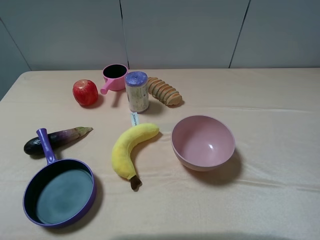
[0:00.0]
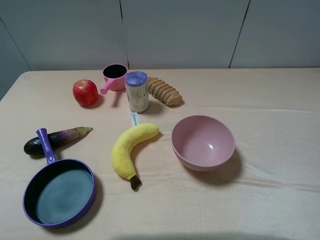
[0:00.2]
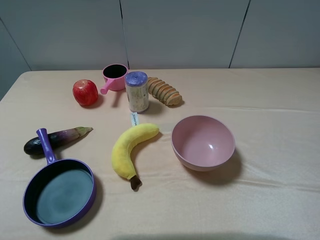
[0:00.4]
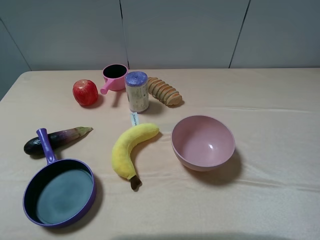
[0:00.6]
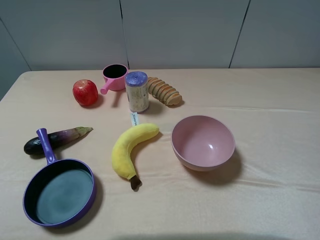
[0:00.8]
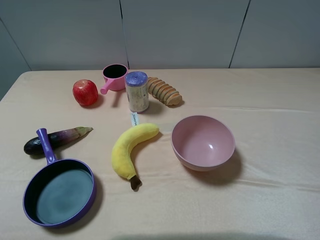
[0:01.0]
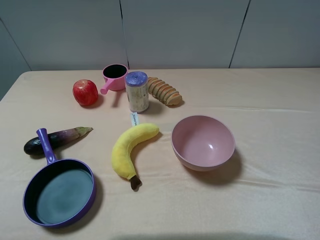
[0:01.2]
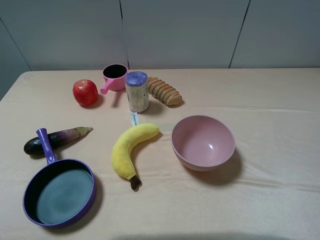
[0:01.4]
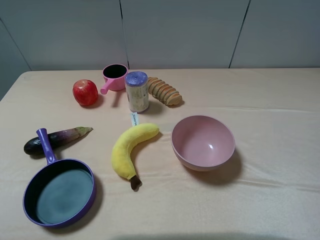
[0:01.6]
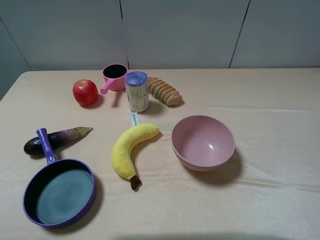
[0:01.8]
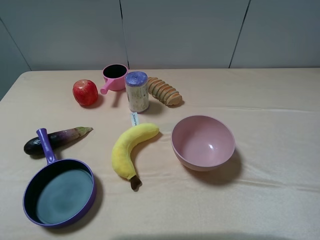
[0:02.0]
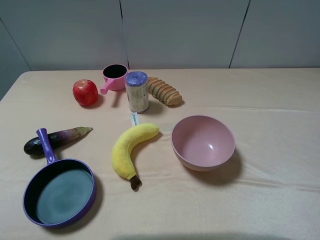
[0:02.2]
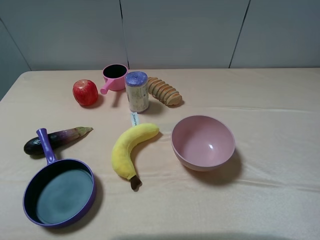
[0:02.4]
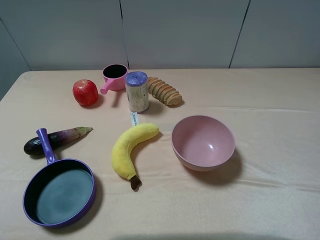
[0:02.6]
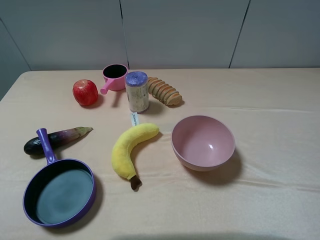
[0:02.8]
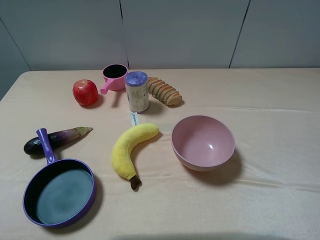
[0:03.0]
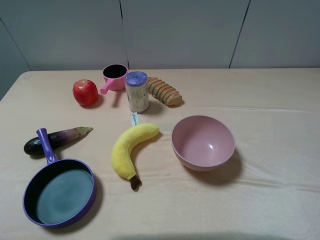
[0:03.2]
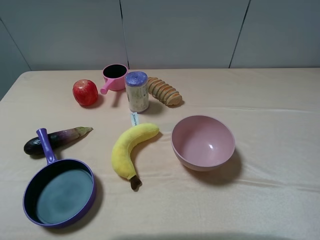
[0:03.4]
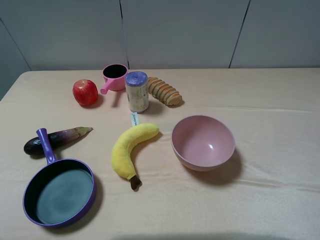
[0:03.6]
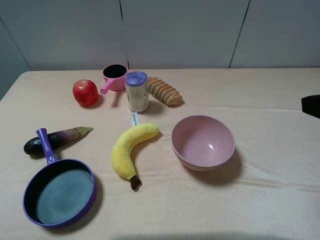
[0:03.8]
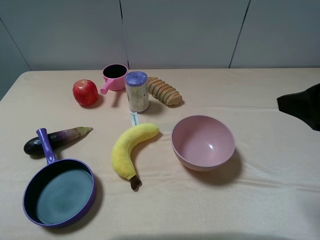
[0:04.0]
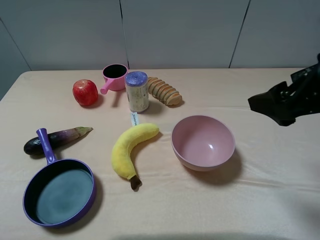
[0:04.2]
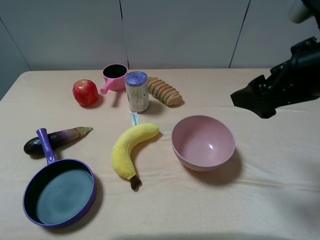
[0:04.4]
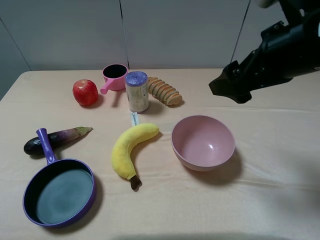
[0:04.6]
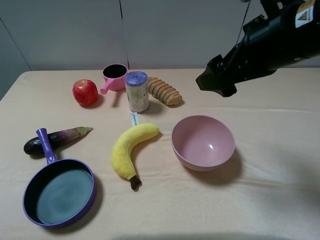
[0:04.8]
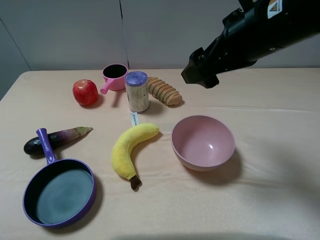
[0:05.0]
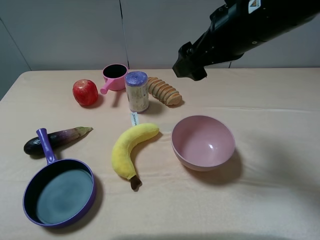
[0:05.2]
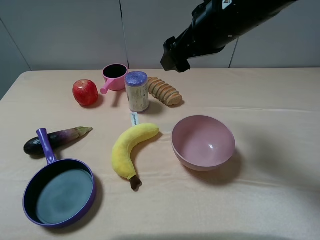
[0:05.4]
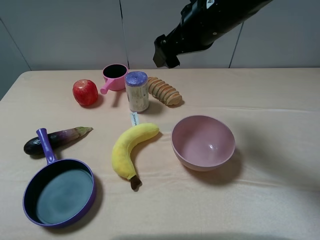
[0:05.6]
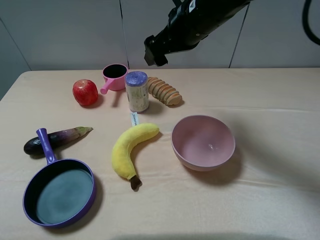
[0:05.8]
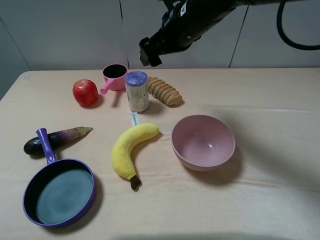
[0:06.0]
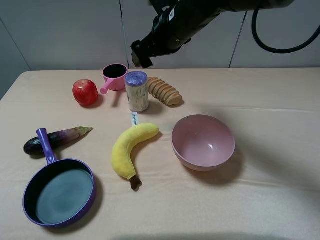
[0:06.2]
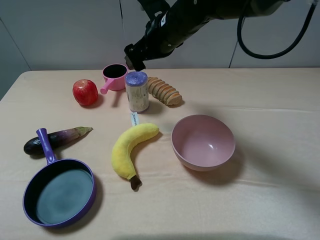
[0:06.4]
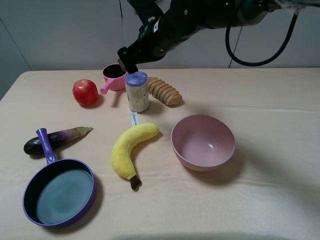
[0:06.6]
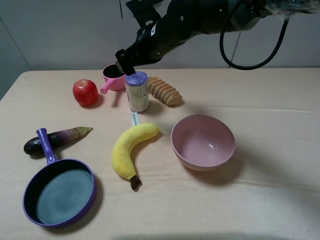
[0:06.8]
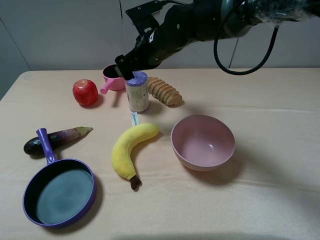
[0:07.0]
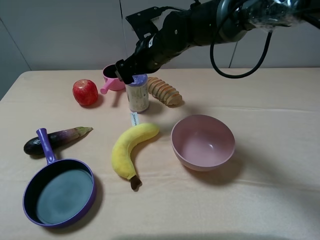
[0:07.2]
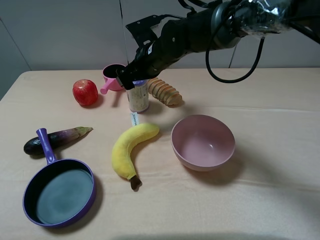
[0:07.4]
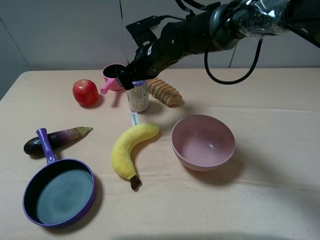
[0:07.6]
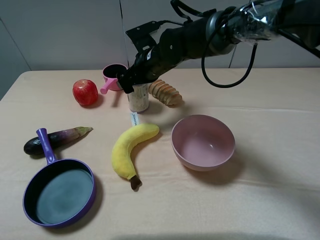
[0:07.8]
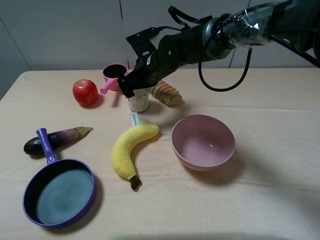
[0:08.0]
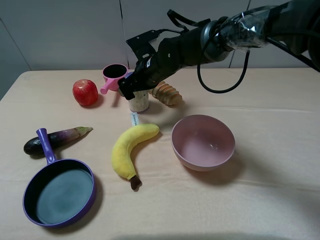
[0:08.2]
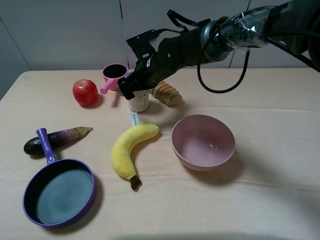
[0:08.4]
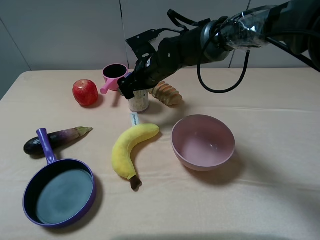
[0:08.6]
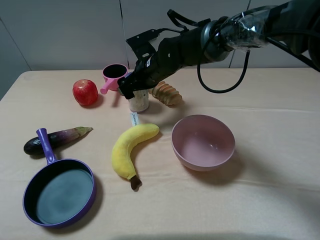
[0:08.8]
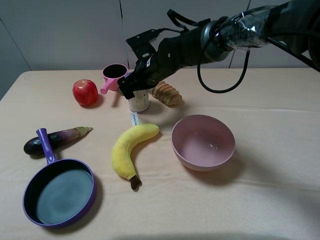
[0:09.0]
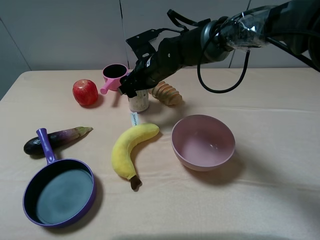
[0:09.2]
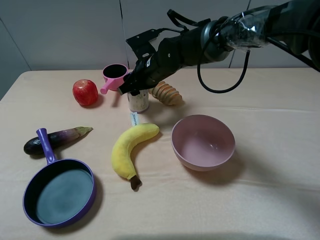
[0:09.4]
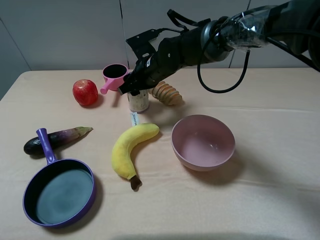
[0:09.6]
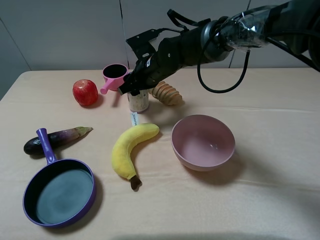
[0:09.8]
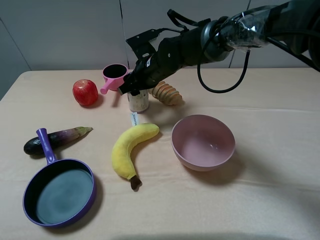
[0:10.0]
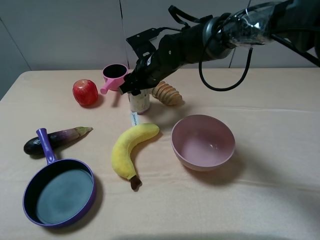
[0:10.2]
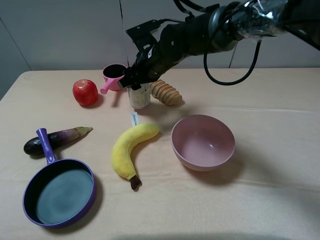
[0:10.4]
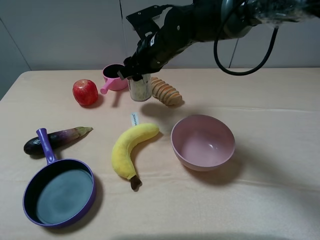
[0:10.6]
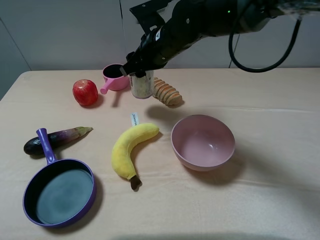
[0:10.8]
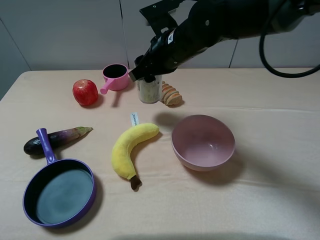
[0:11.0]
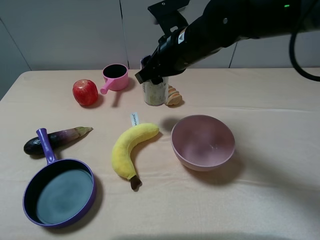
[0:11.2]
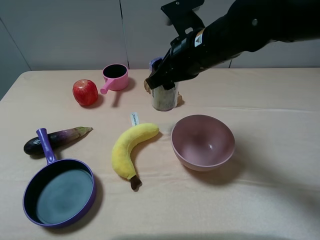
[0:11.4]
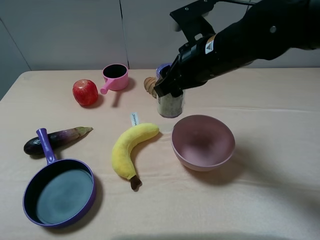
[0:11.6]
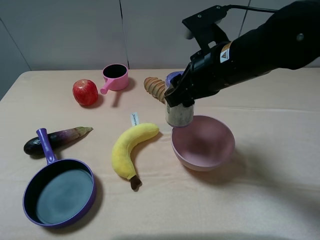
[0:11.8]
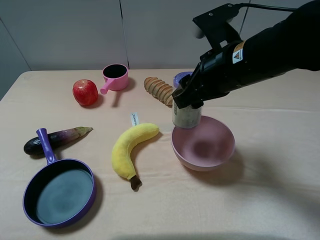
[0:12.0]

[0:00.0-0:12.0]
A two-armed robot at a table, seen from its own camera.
Task of the whole recording: pick up an item with a gripper and place it in a random container on the table.
Step, 0:00.0 to 0:09.6: Grasp the blue garbage bag with the right gripper.
0:00.0 to 0:03.0: Both grippers stay put.
0:03.0 to 0:04.4: The right gripper moves forward and to the left, roughly 20 cm.
0:04.4 to 0:06.0: The right gripper heads forward and to the left, covering some 25 cm.
0:06.0 to 0:07.6: The right gripper shifts some 10 cm downward and to the left.
0:07.6 to 0:09.0: There are only small adjustments of the grippers.
0:09.0 to 0:10.4: The right gripper closes its fingers.
0:10.4 to 0:12.0: The right gripper moves backward, to the right and upward, approximately 20 cm.

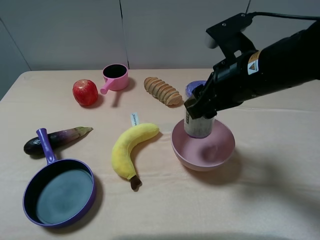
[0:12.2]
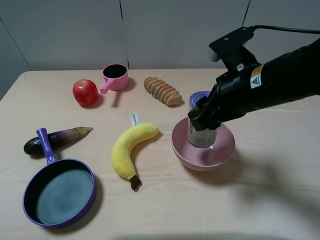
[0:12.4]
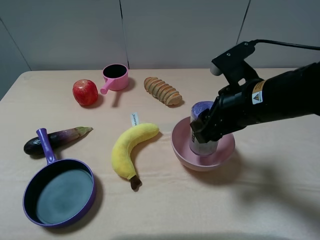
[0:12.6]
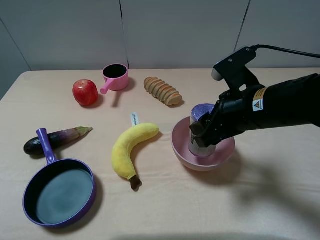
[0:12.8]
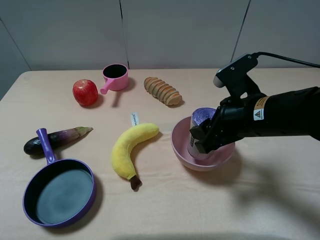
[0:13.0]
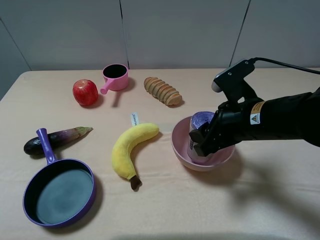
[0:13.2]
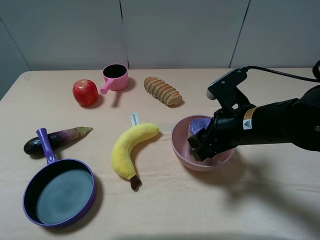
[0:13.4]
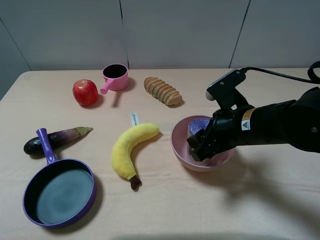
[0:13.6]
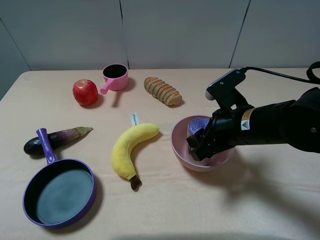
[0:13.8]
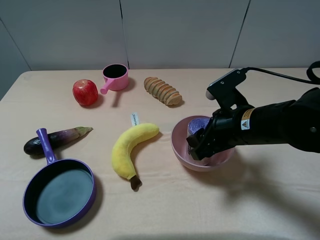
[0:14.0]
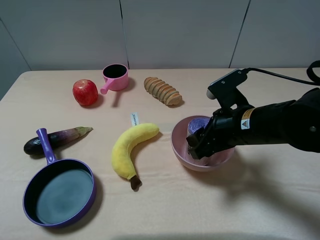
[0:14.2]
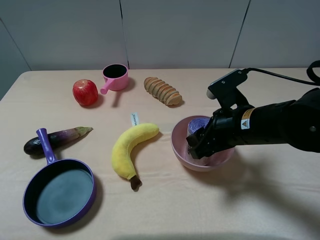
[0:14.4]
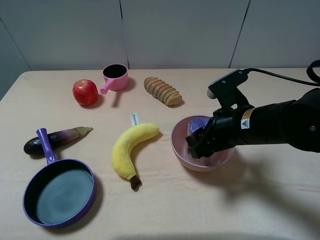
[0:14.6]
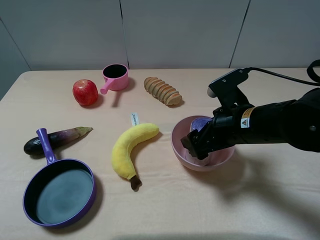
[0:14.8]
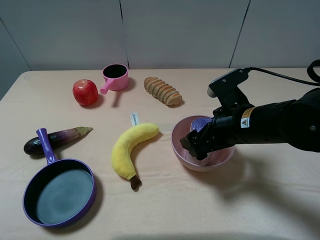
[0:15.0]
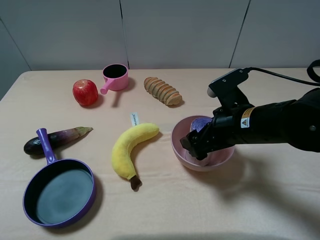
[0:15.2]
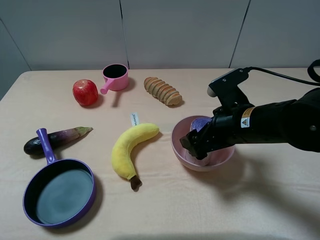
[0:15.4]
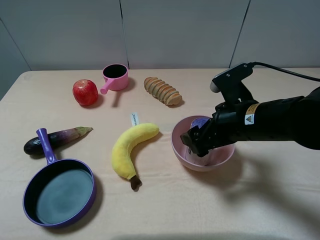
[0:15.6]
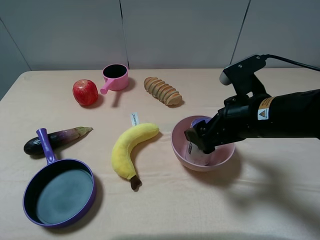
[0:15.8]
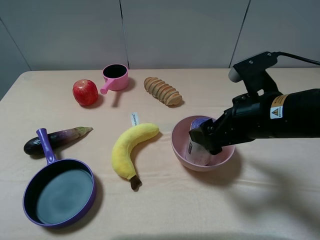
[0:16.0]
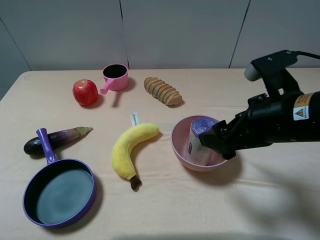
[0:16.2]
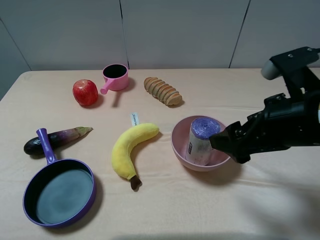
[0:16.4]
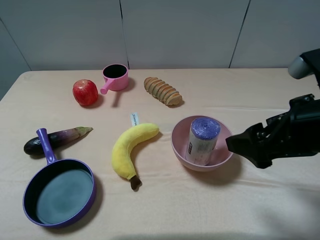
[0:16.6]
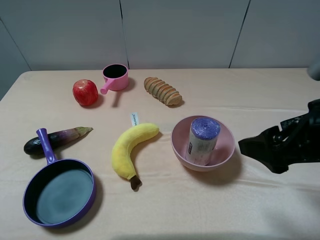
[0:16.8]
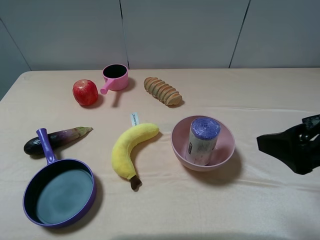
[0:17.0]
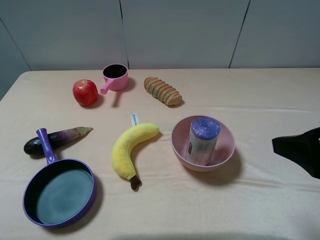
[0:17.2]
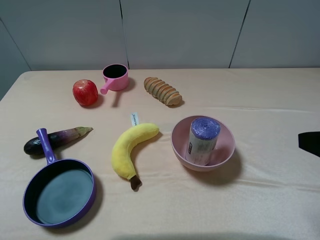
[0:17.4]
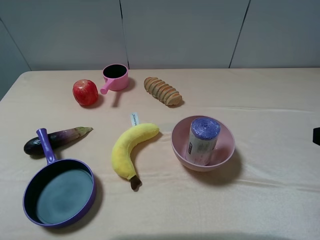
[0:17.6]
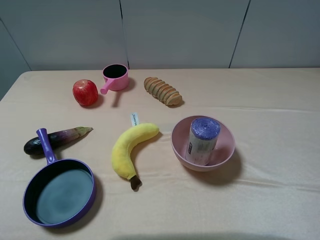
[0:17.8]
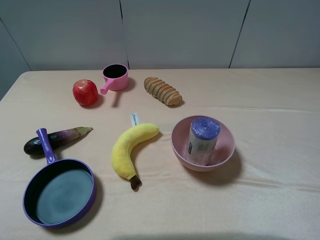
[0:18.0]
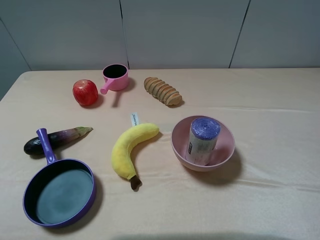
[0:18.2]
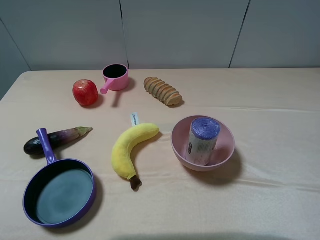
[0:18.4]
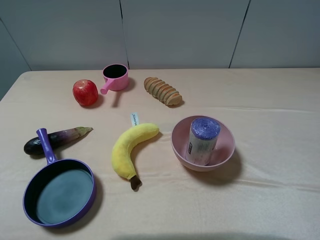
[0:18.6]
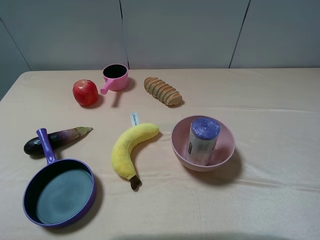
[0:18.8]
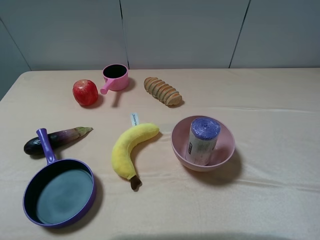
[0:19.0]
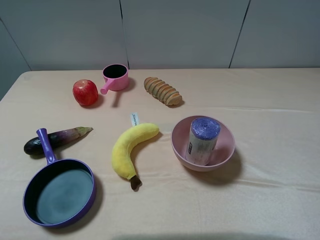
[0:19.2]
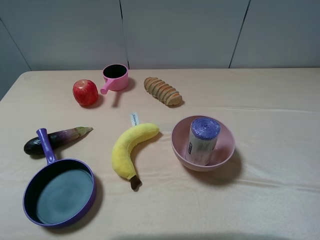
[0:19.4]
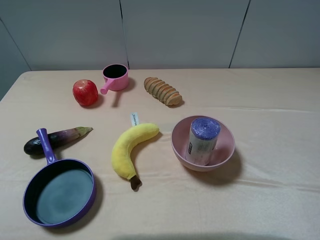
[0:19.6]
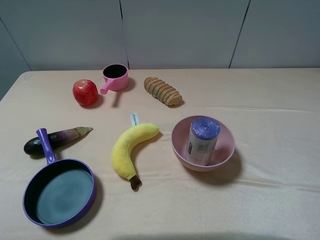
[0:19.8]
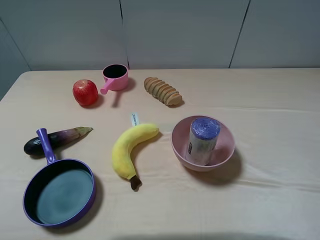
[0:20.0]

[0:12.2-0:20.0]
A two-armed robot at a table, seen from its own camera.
Task of the whole recording: pick up an item with a gripper and place it in a random container on the table.
Step, 0:12.2 to 0:15.4: Place the blue garbage bag into the pink bowl with the right gripper.
0:12.2 to 0:13.8: The right gripper goes roughly 10 cm downward.
0:13.8 to 0:15.4: The right gripper opens its fingers.
0:15.4 to 0:16.8: The right gripper shifts roughly 15 cm upward, backward and to the right.
0:16.8 to 0:18.4: The right gripper moves to the right and backward, roughly 10 cm.

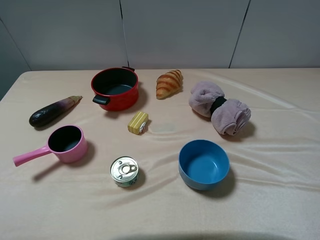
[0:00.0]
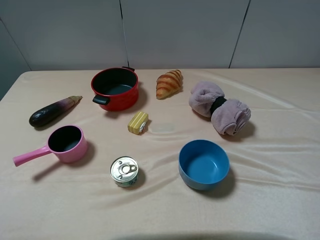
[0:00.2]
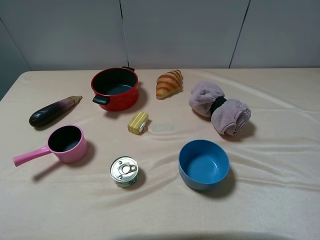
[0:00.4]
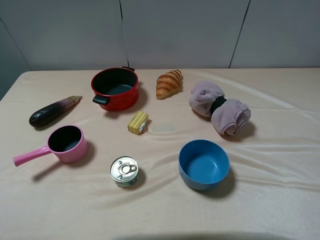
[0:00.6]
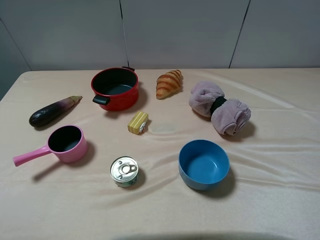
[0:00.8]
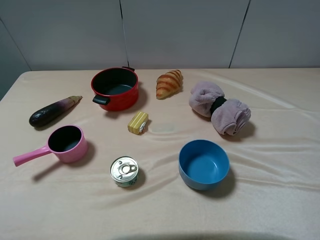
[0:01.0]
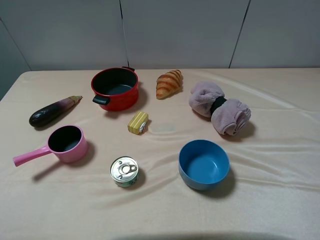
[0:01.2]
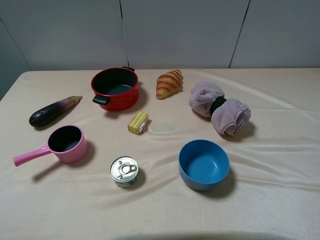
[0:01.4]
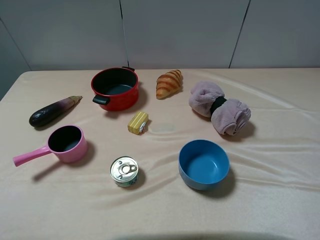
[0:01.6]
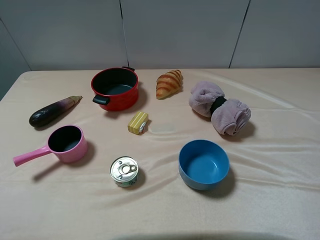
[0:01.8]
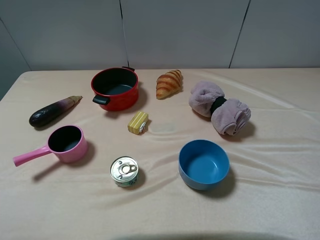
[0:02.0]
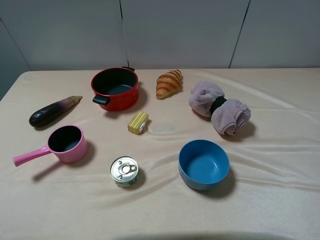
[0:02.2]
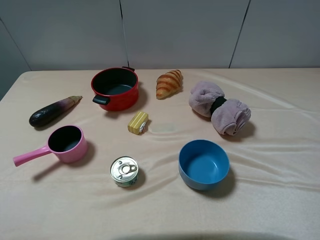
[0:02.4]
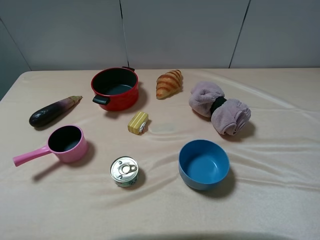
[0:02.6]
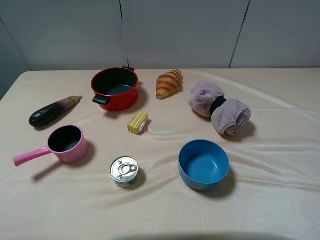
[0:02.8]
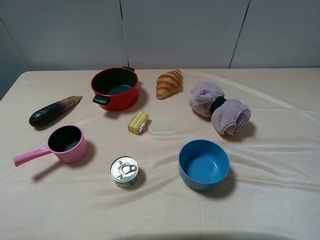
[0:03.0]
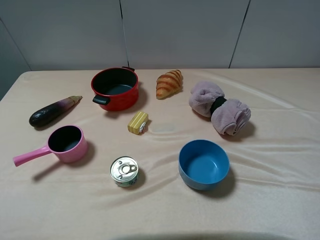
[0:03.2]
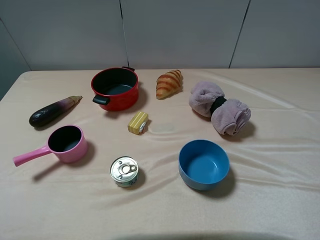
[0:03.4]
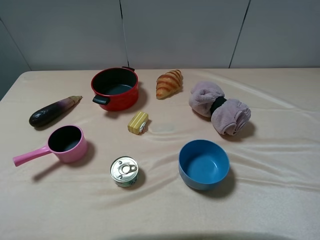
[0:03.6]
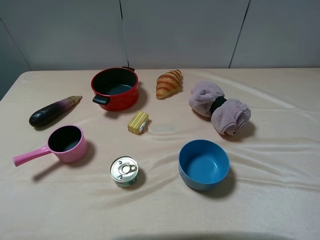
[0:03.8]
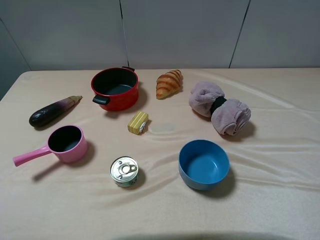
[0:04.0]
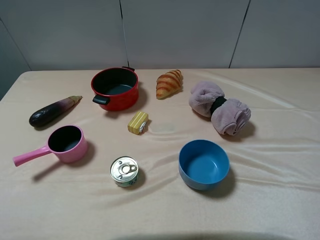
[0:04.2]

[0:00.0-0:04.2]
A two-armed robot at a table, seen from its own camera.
Task of the whole recording: pick up an item with a gripper and place it in a random container on the table.
0:00.0 to 0:02.8: Neither gripper changes place.
